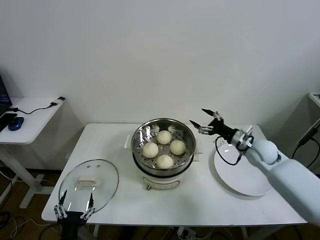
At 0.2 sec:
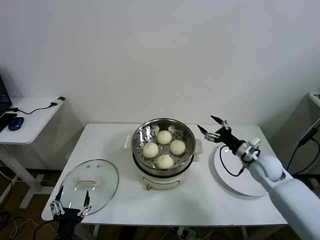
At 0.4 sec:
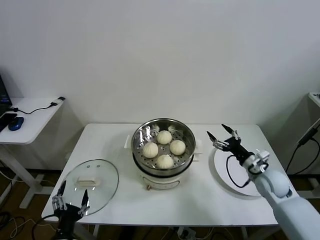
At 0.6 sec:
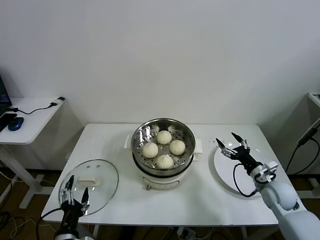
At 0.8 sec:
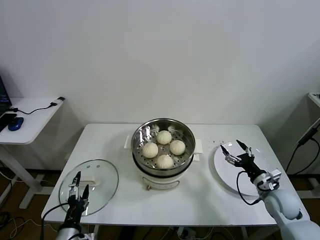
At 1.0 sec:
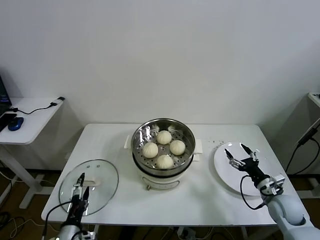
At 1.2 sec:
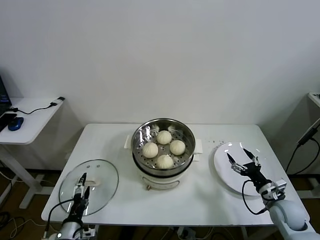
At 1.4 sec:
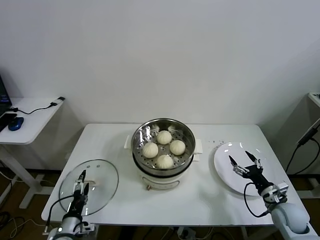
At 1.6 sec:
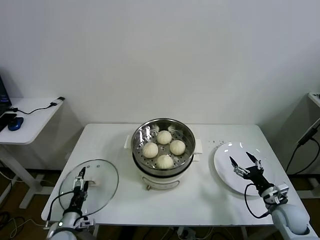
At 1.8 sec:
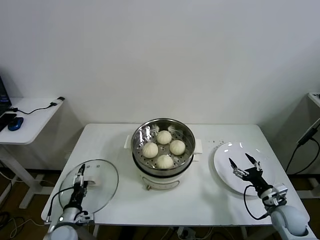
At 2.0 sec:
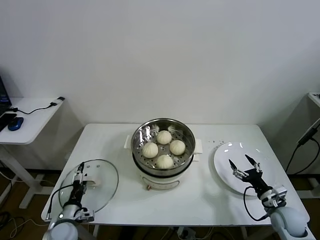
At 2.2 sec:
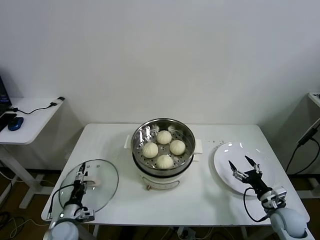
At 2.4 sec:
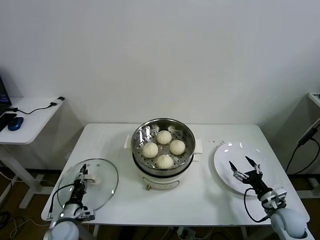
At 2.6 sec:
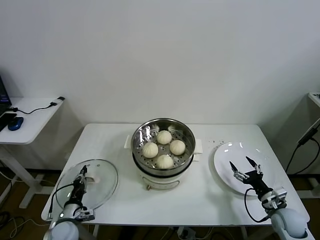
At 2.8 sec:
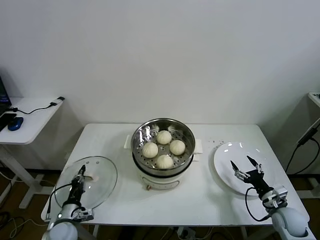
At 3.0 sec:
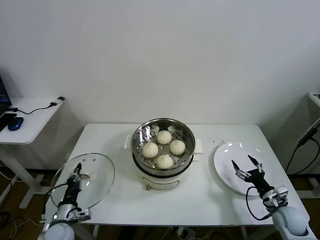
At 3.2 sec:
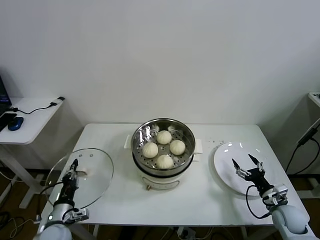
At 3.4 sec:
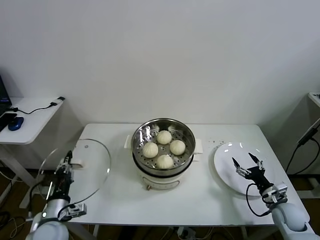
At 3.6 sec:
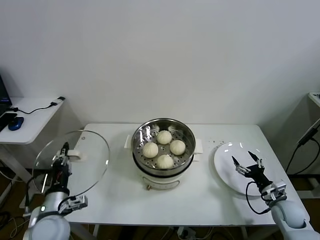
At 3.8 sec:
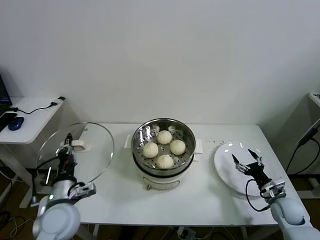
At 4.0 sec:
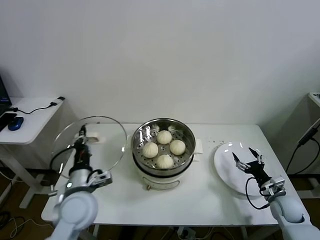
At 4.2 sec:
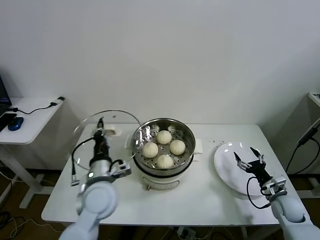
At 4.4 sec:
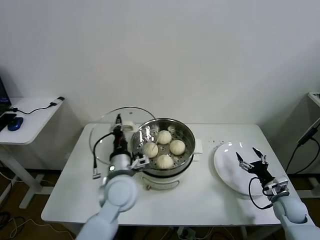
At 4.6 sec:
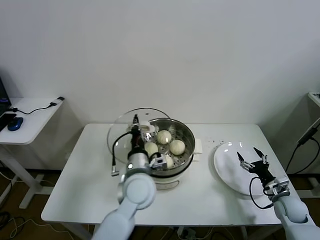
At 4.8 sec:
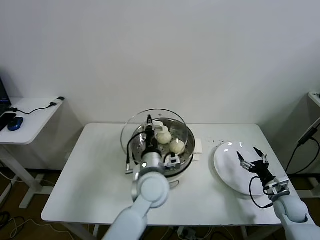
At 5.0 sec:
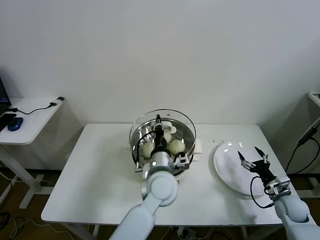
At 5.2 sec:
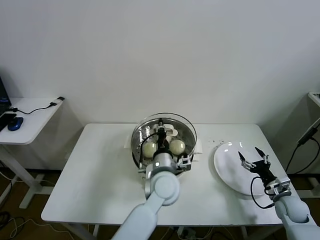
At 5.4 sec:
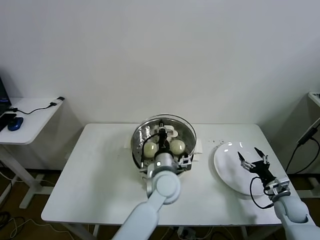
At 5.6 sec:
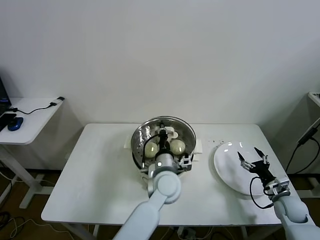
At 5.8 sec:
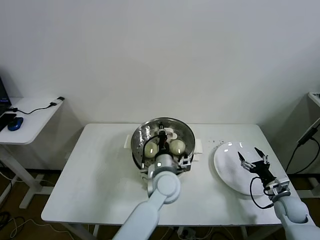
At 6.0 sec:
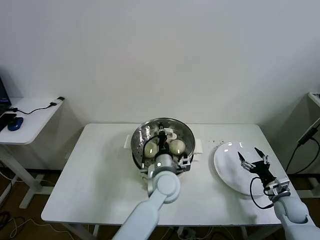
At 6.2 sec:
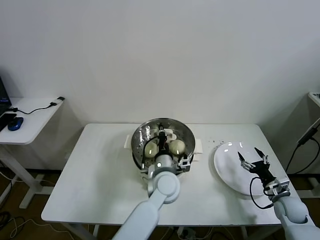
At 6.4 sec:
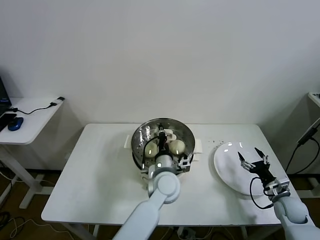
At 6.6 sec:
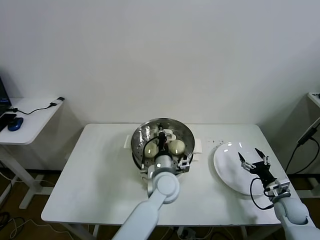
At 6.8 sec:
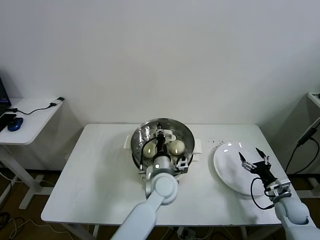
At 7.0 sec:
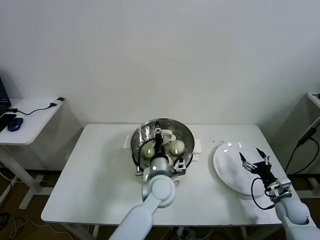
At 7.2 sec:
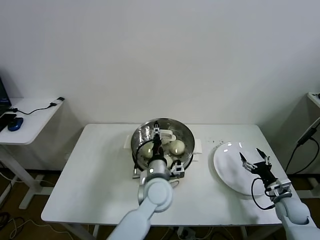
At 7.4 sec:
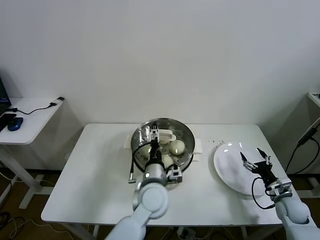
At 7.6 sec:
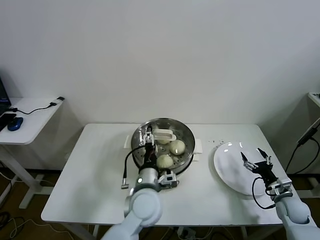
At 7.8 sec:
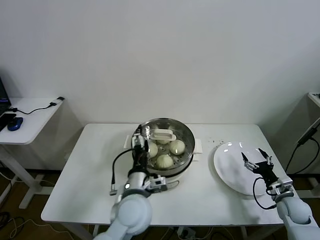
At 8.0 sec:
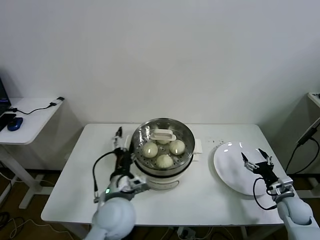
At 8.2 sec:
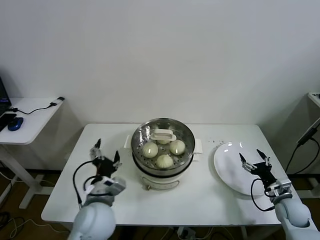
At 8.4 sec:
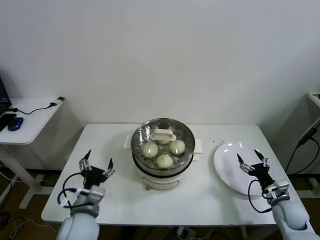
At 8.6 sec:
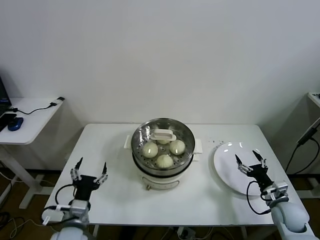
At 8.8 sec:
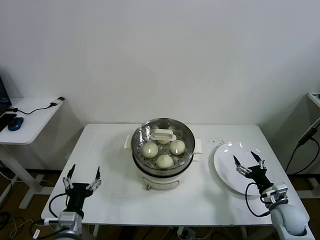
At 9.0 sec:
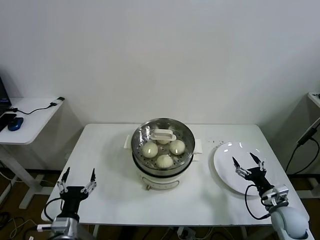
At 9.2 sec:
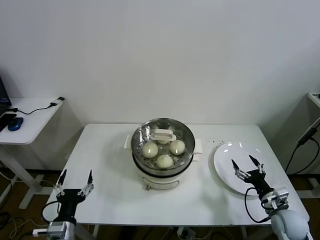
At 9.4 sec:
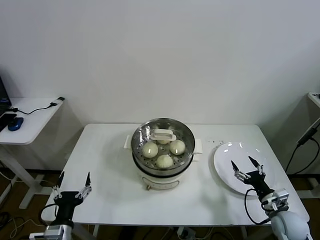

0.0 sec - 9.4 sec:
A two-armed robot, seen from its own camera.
Task of the whole recording: take steamed baozi put them in steamer then cover it.
Step, 0.0 sec - 2.6 sec: Grasp the pot lid with left gripper.
Step, 2.8 sec - 6.8 sec: Place the pot lid on the steamer with left gripper.
0.0 sec - 1.6 sec: The left gripper shifts roughly 15 cm forward, downward and to the left; the right gripper moves backward, downward and to the right, approximately 25 cm.
1.6 sec - 3.2 sec: The left gripper closes.
3.2 sec - 4.8 sec: The left gripper shifts about 35 cm to the right and upward.
4.8 sec - 6.2 sec: The left gripper travels downward by some 5 cm.
6.2 sec - 7.8 sec: The left gripper is displaced backward and to the left by about 10 cm, and opens up.
7.8 sec - 9.4 sec: The left gripper moves to the left, backward and downward, approximately 30 cm. The right gripper is displaced to the left and backward by roughly 10 cm.
